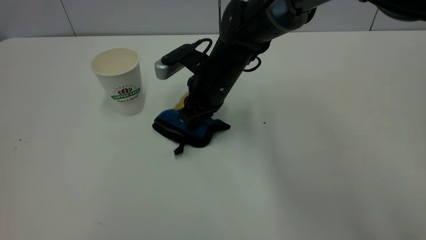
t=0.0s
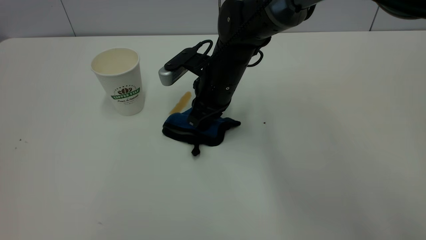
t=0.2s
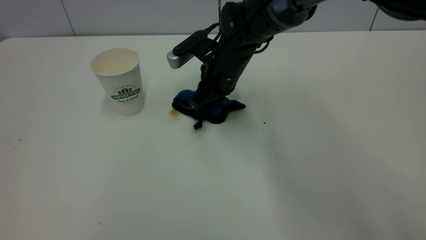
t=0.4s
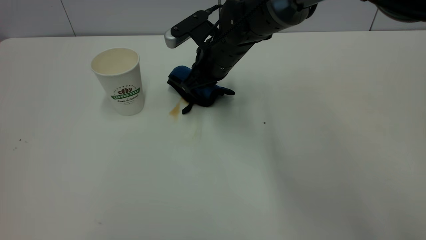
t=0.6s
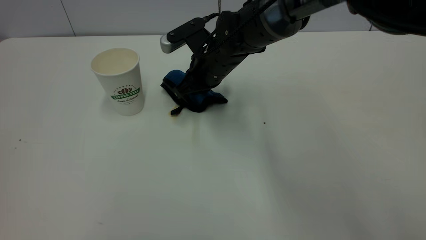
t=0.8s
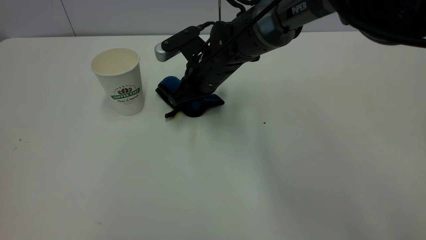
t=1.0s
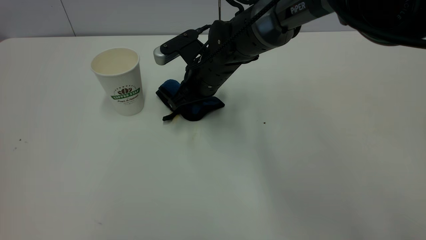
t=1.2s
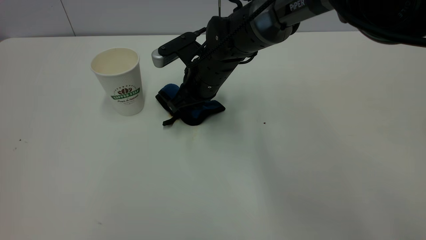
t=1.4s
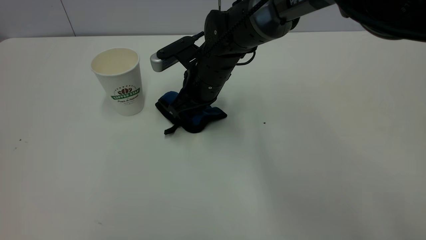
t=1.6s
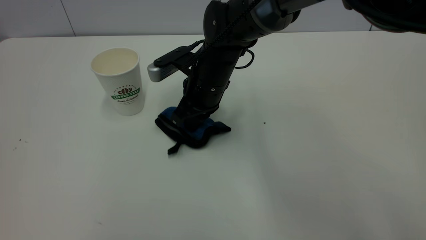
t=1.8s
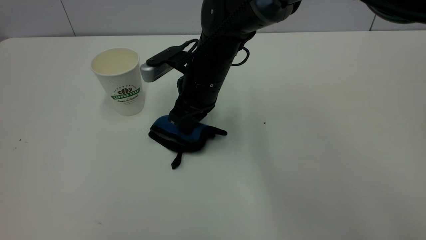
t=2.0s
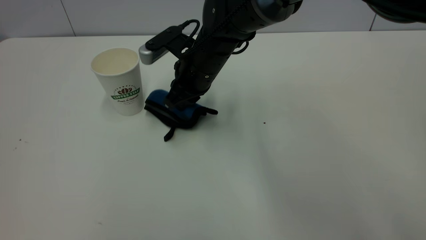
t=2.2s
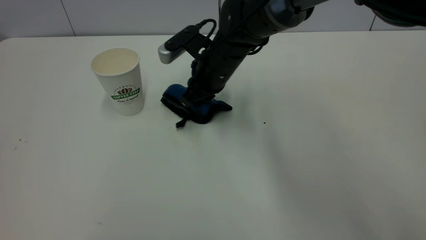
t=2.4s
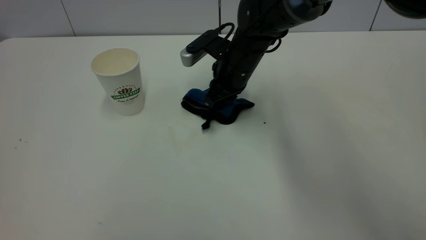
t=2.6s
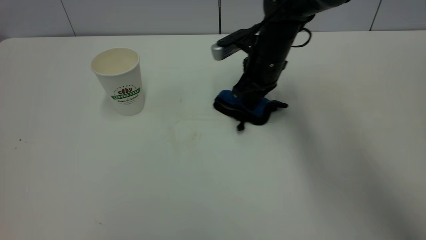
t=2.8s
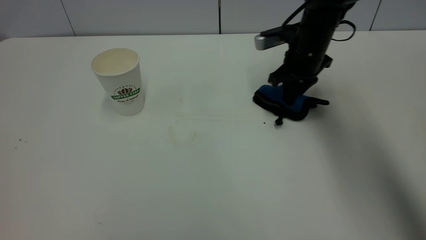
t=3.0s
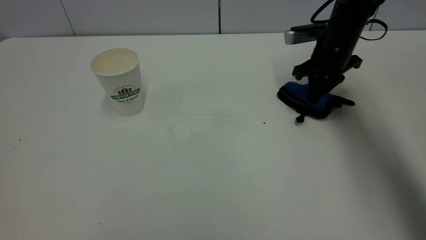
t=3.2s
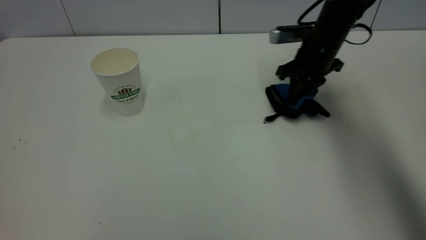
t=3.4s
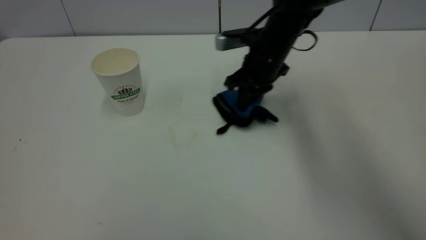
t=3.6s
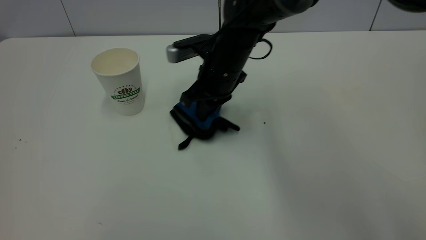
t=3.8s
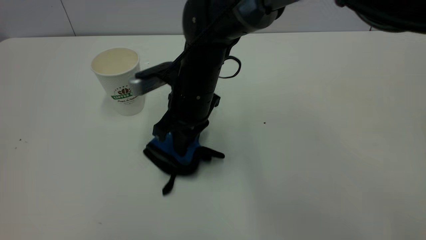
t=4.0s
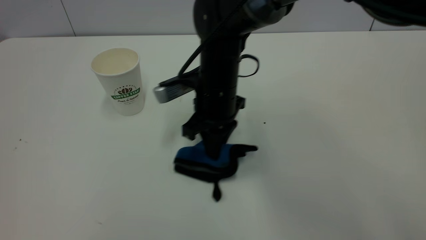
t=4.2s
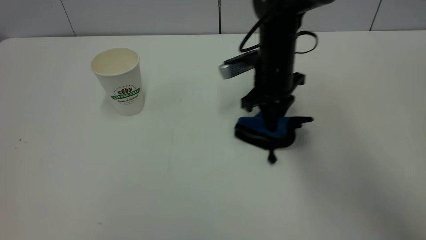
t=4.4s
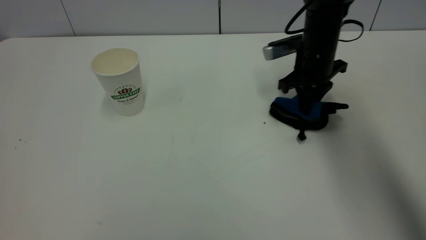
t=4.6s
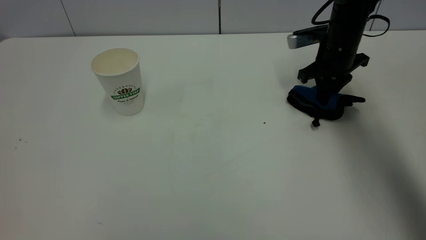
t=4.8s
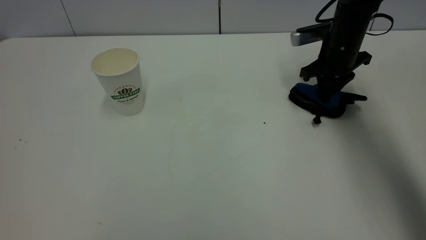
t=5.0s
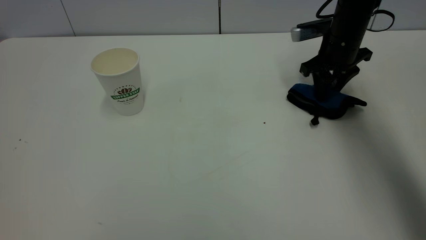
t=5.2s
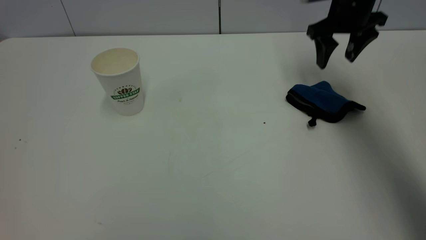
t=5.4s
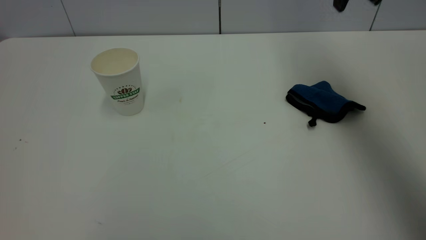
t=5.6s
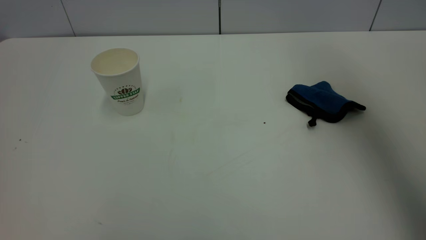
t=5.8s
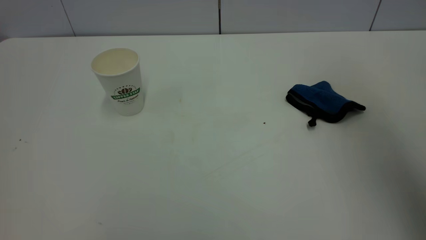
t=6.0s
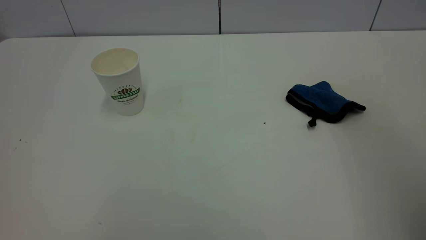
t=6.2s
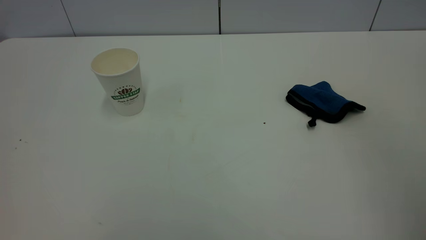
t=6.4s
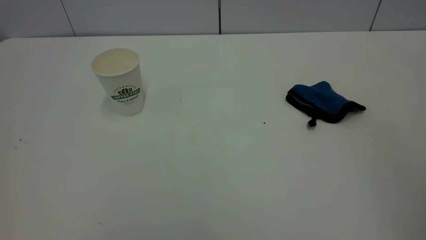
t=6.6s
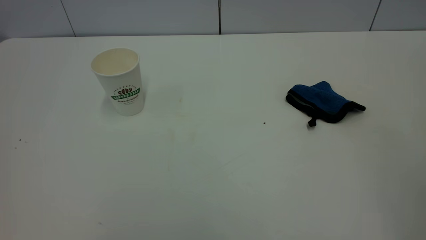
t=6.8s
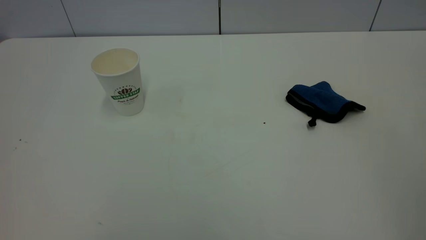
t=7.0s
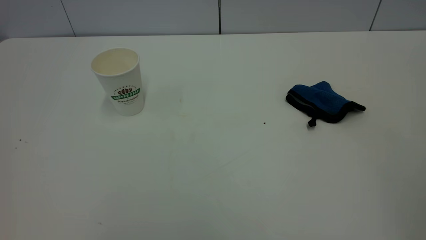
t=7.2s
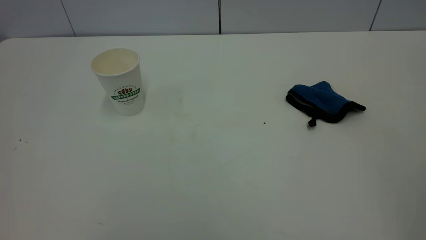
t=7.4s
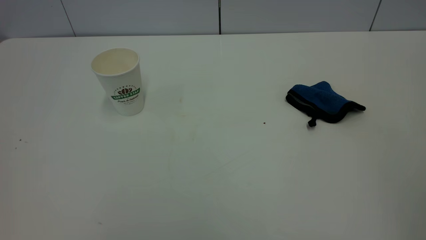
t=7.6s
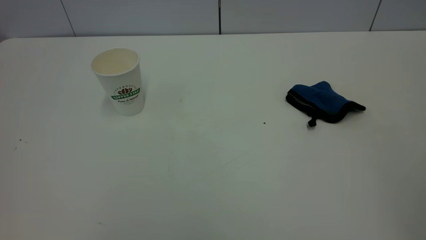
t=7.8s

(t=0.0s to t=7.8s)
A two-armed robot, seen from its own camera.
Task of the whole recording: the left gripper pick up the fallen cup and place it upright, the right gripper grasp the blue rag and wipe the tea stain on the table, the right gripper put the blue rag back in its original position.
Step, t=0.0s - t=5.4s: Wipe the stains off the table with a rag.
t=1.6s - t=3.2s: The right gripper shifts approximately 25 cm to the right.
t=3.2s - t=4.6s: The right gripper reaches roughly 25 cm to the left, then returns.
t=4.6s - t=6.2s: The right gripper travels backward and upward by roughly 40 cm, and opens.
